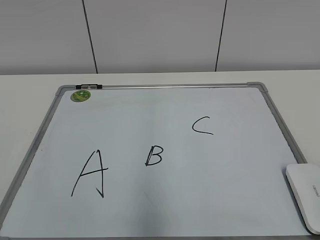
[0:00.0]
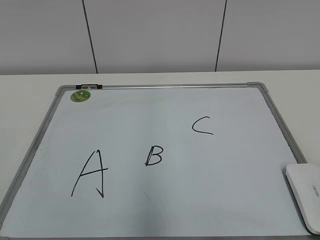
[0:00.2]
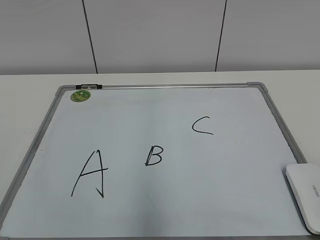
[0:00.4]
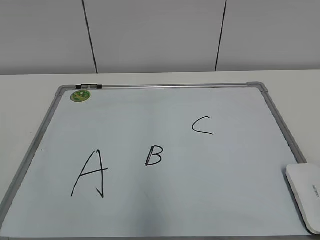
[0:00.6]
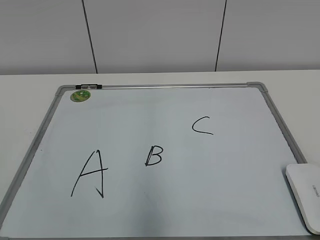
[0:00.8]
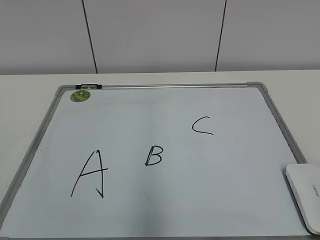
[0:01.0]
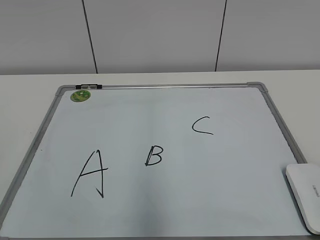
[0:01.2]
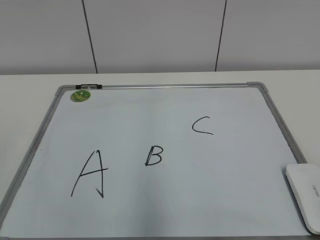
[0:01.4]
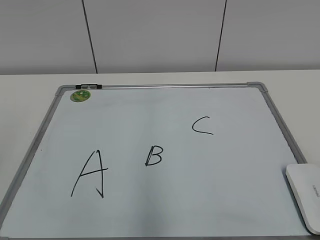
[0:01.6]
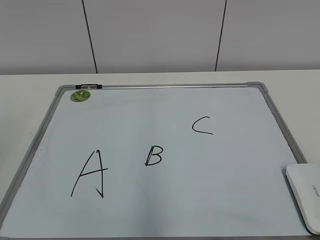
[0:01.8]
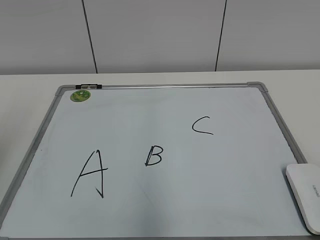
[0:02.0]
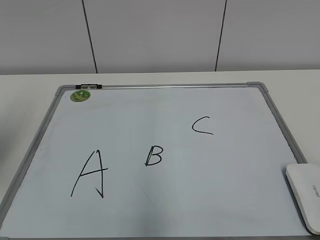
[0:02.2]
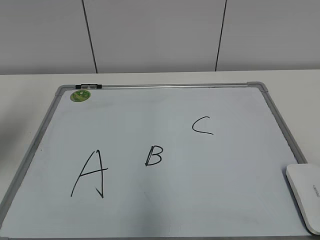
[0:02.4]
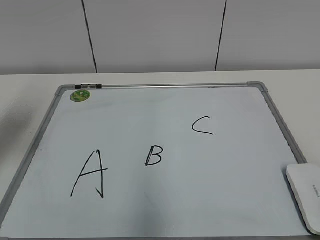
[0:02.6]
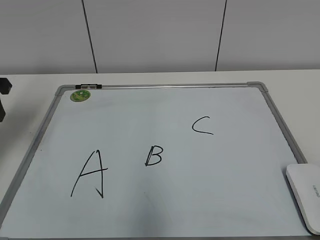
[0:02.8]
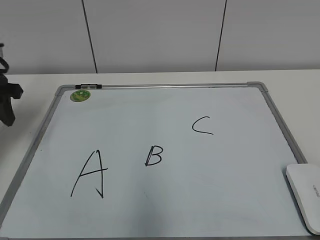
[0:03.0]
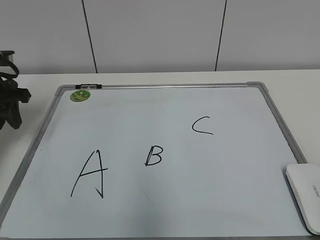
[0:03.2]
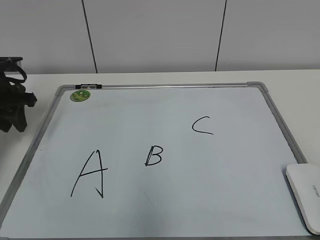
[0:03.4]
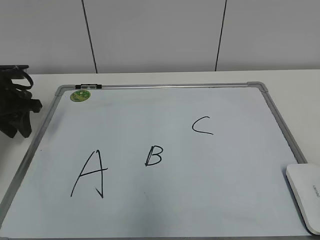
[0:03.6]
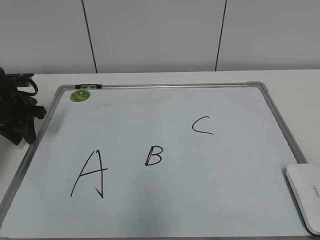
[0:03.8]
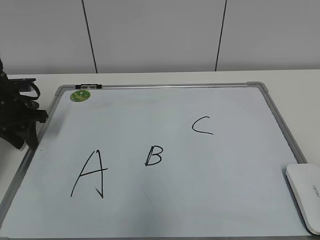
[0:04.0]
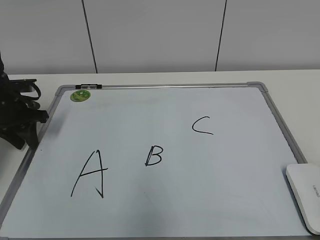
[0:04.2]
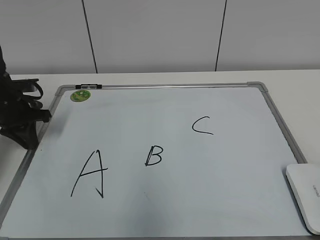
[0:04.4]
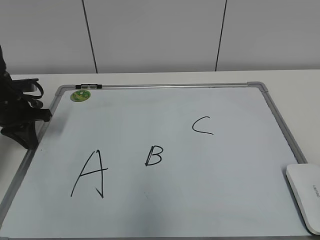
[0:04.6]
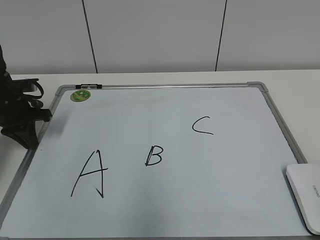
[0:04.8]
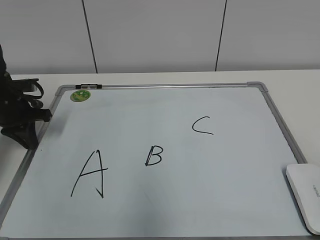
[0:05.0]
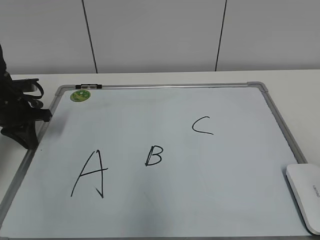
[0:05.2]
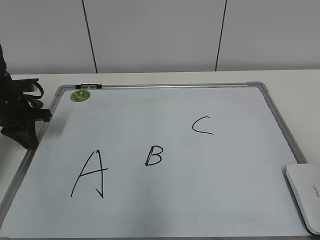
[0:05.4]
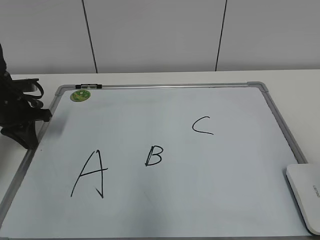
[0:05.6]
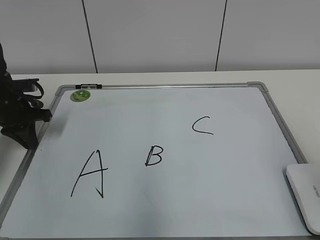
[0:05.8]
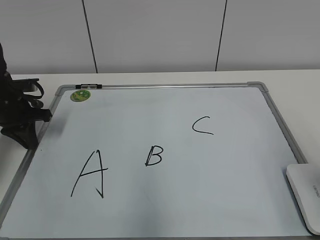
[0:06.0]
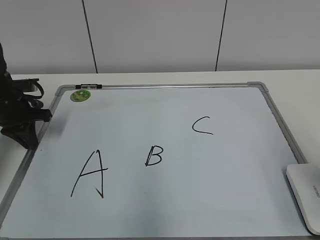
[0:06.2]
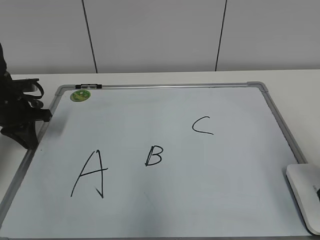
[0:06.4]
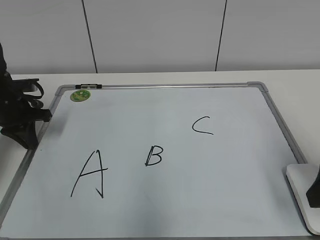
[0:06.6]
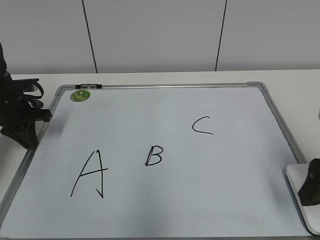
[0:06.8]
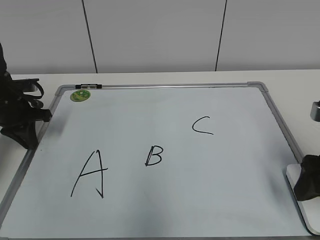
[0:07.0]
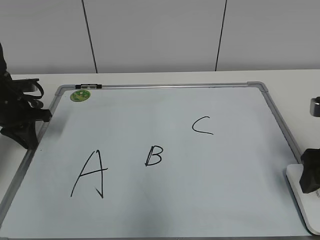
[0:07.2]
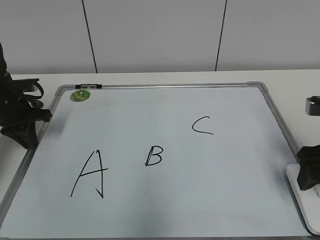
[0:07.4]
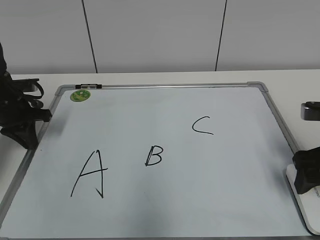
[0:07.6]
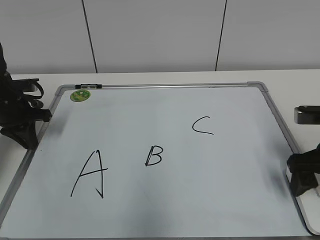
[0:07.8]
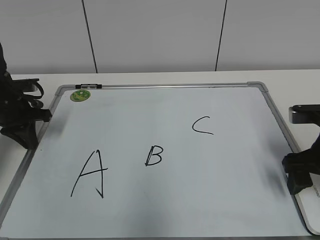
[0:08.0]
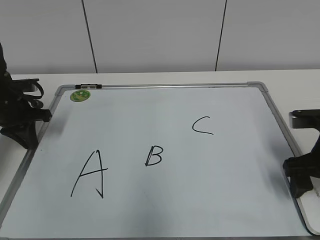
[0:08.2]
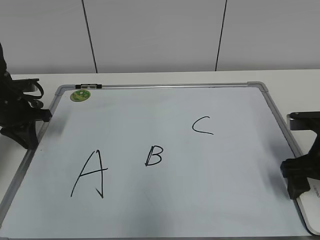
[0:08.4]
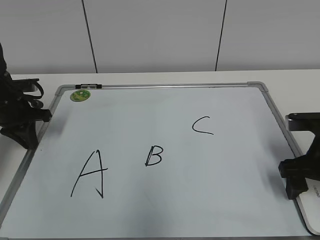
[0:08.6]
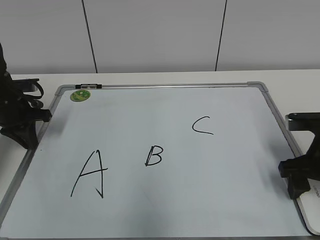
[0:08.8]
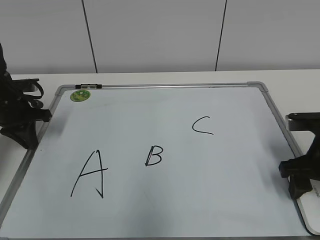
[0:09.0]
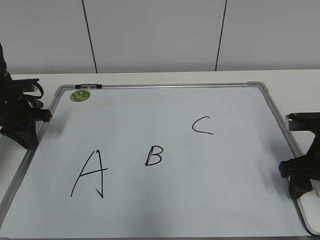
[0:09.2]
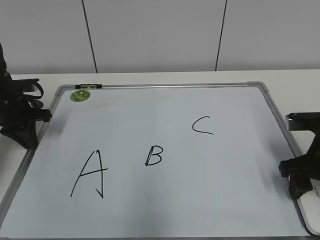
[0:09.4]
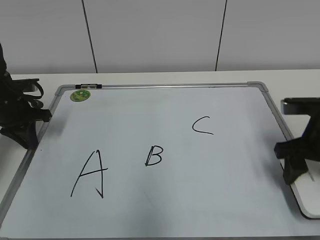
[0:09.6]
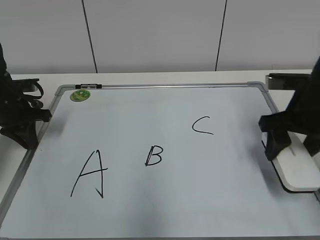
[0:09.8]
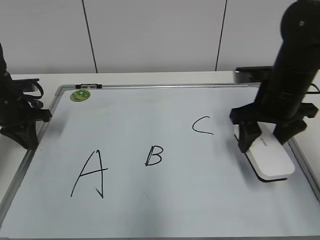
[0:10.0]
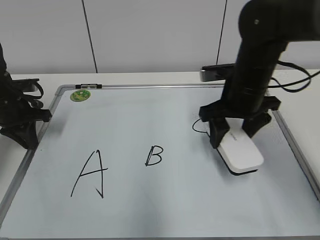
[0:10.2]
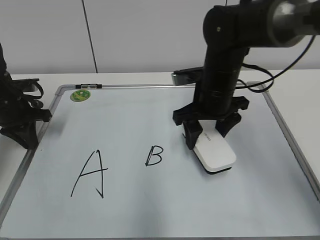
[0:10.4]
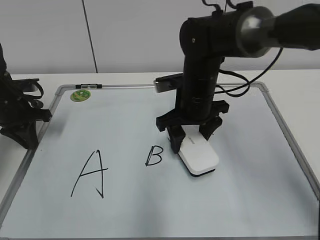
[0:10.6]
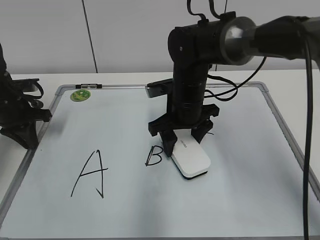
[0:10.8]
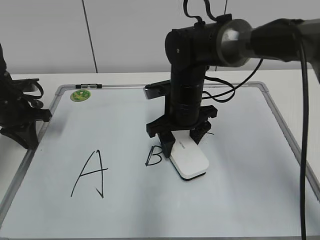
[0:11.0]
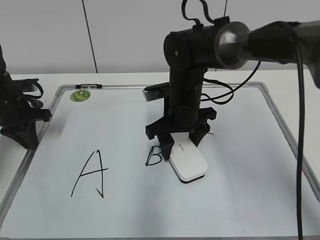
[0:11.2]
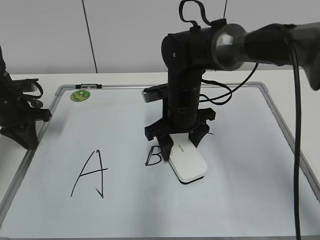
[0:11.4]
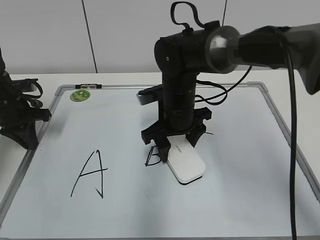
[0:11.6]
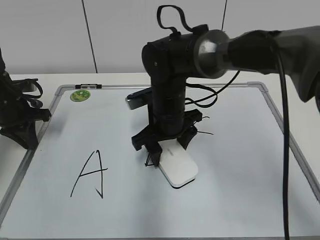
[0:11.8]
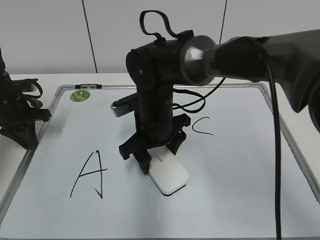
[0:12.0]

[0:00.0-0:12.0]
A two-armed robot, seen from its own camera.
Task of the whole recording: pick up the eraser on the blackboard and erase the letter "B".
Step, 0:00.0 to 0:04.4: Hold the drawing board steady with your left hand.
Step, 0:04.6 to 0:09.2: Grab the eraser with your right hand.
0:01.6 to 0:03.0: The left gripper travels forward by roughly 30 cm.
0:03.0 to 0:04.4: The left gripper goes some 10 cm downward.
0:04.4 to 0:06.0: The right gripper travels forward by approximately 15 cm, and opens up.
0:06.0 to 0:07.6: The right gripper heads forward and downward, covering about 15 cm.
0:07.6 to 0:09.0: The right gripper closes its fingers.
0:09.0 to 0:10.4: The right gripper travels to the left and forward by about 20 cm.
0:10.4 to 0:12.0: The right gripper heads to the left, covering some 10 cm.

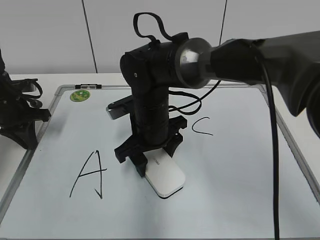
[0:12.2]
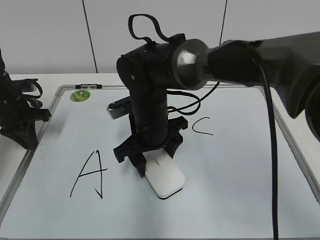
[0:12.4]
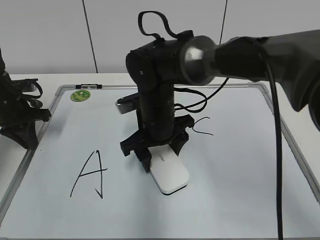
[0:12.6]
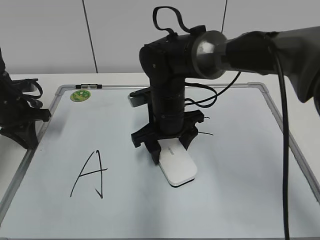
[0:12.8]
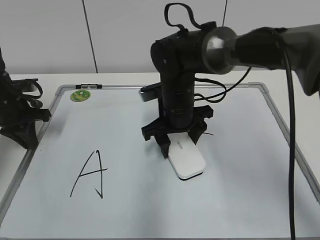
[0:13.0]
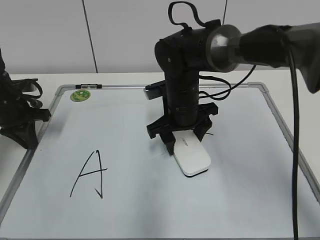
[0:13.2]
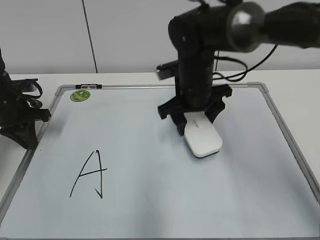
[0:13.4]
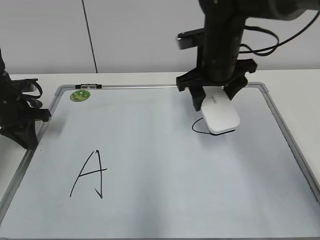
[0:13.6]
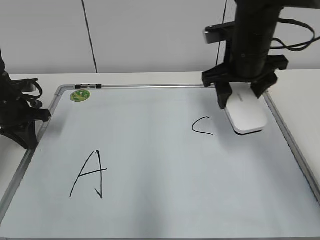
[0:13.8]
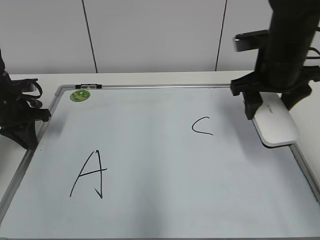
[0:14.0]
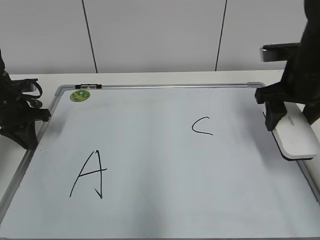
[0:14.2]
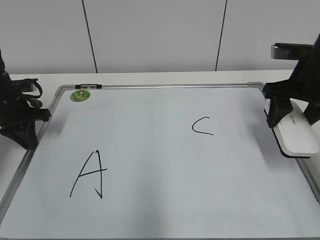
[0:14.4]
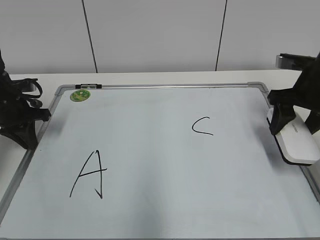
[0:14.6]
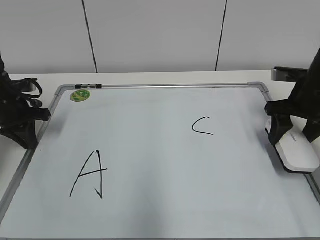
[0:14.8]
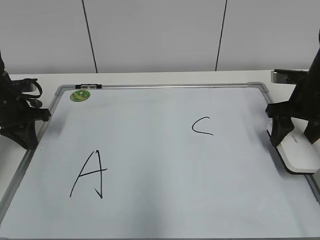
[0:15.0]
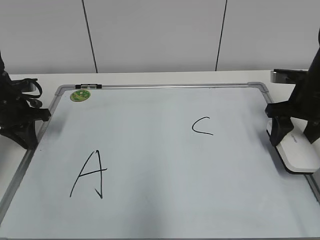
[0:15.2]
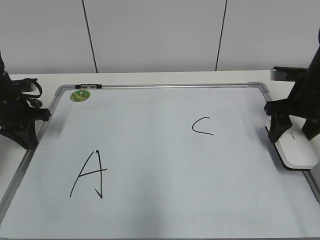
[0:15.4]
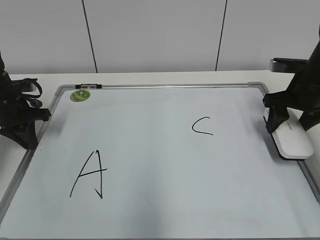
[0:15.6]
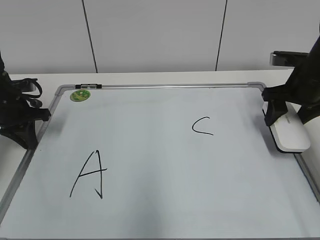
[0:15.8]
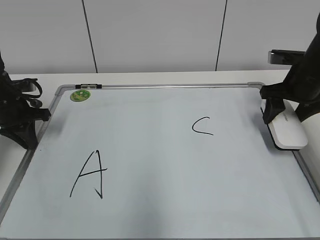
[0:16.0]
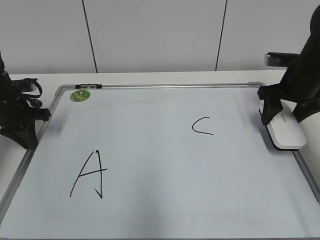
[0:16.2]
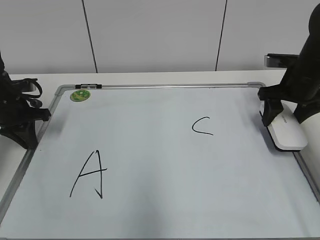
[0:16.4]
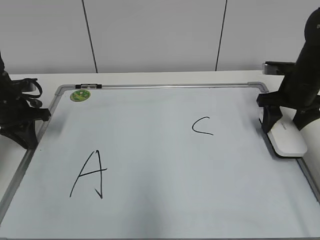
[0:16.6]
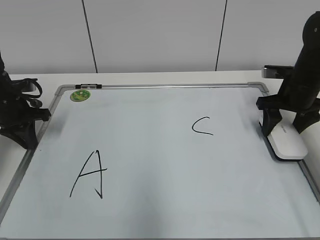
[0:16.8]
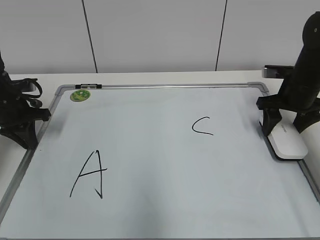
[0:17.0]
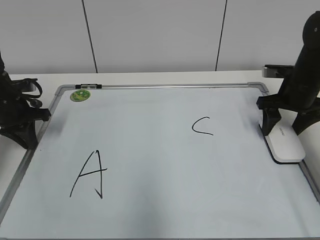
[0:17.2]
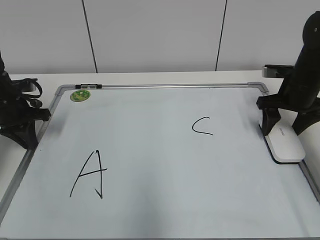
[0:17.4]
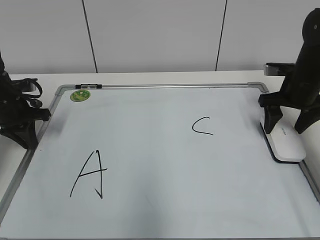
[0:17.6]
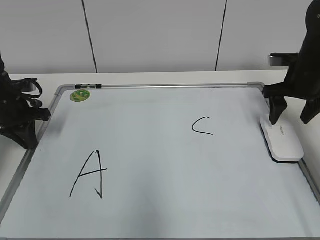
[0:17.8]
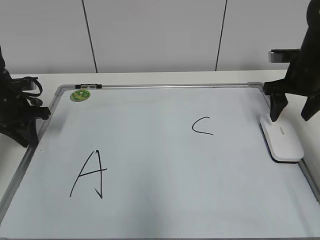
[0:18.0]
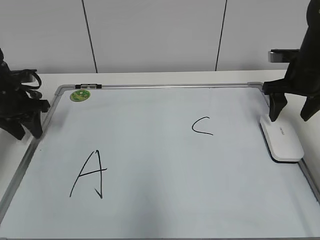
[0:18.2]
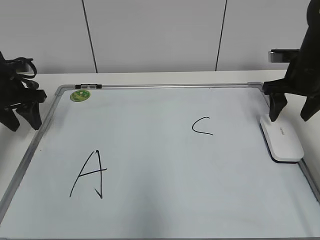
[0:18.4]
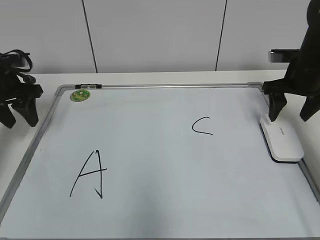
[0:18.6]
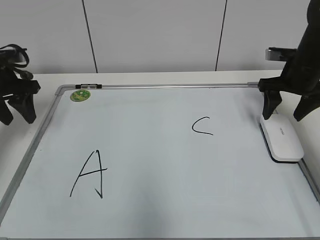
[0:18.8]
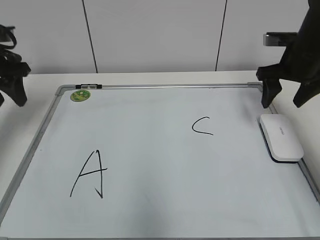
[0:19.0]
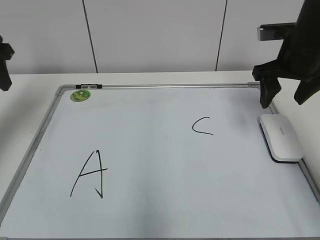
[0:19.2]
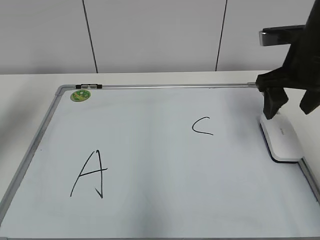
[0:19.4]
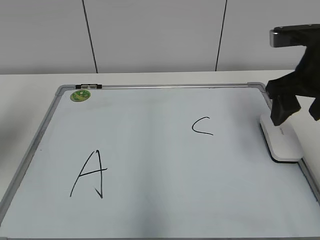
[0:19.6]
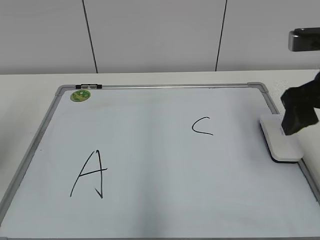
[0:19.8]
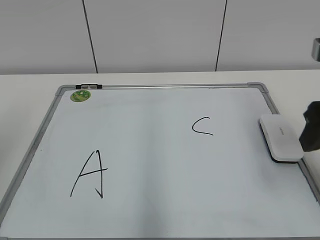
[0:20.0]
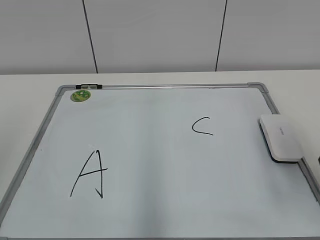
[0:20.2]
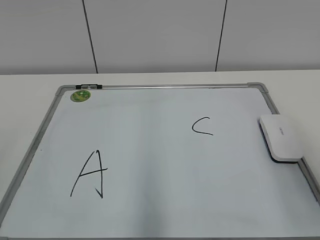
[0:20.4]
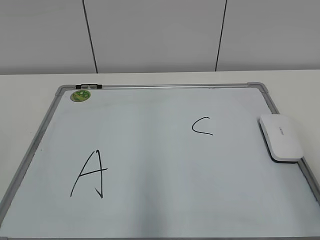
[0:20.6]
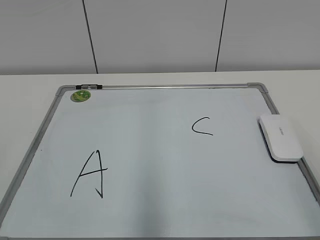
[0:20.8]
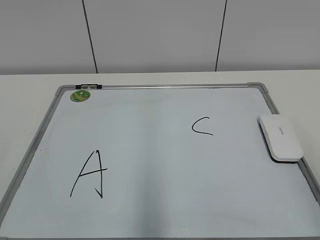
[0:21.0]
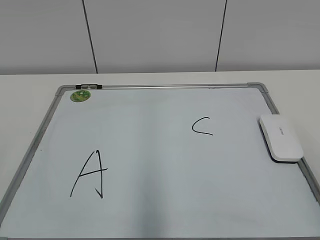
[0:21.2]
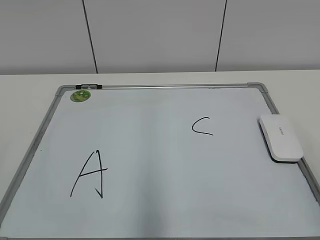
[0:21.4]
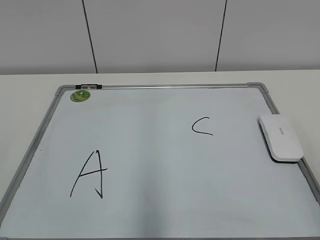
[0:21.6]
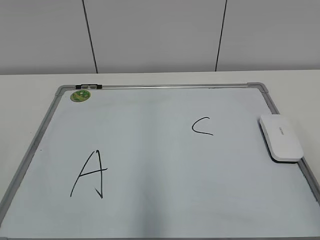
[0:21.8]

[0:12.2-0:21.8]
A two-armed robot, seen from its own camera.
Task of the whole recording: pick up the eraser on the blackboard and erase the letter "B".
Step, 0:13.4 to 0:17.0: Put down the eraser with your right hand.
0:12.2 to 0:13.8: The right gripper goes roughly 20 cm to the right and upward.
0:13.8 to 0:15.4: The right gripper travels to the right and downward by some 15 cm.
0:15.4 to 0:17.0: The grippers make only small movements.
0:17.0 to 0:18.6: The left gripper shifts approximately 5 cm upward, and opens. Meanwhile the right gripper opens up.
0:18.6 to 0:20.2: Both grippers move backward and upward, approximately 30 cm.
0:20.2 to 0:21.8: The right gripper goes some 15 cm backward.
